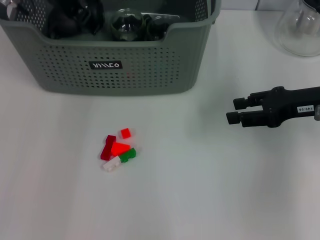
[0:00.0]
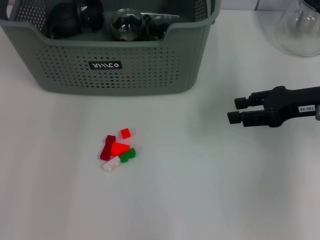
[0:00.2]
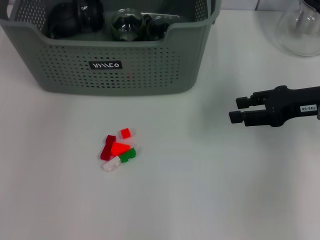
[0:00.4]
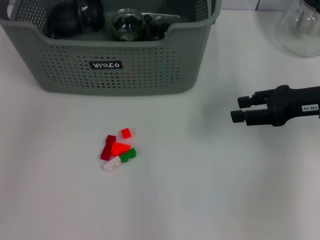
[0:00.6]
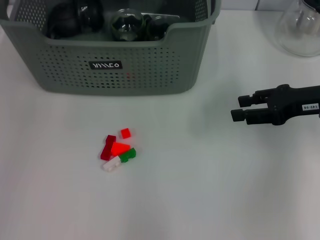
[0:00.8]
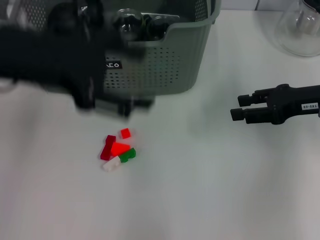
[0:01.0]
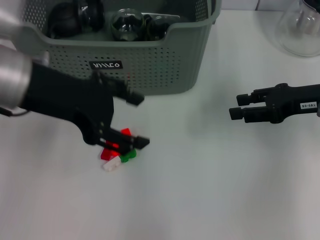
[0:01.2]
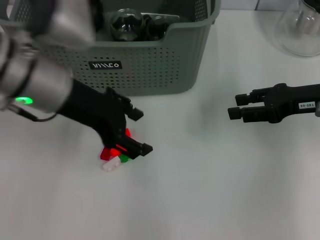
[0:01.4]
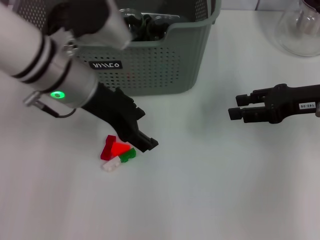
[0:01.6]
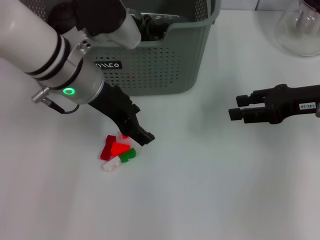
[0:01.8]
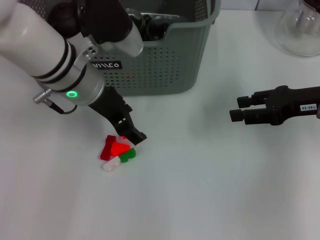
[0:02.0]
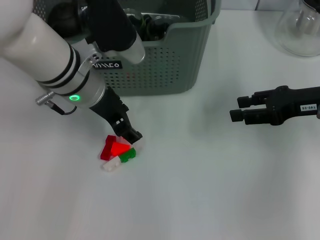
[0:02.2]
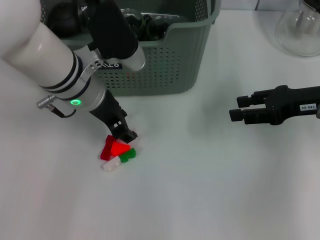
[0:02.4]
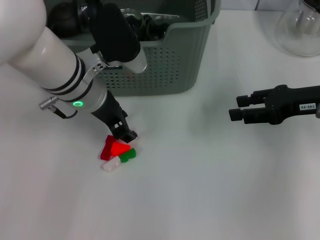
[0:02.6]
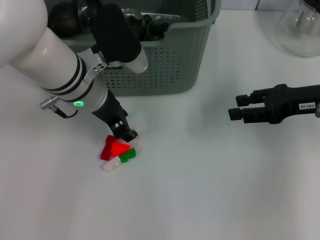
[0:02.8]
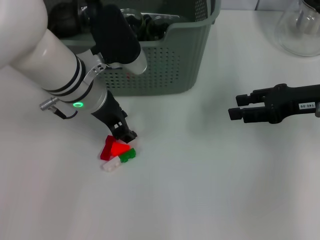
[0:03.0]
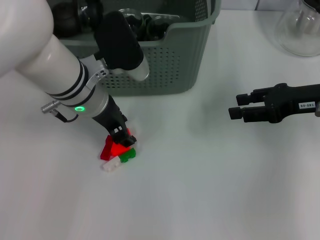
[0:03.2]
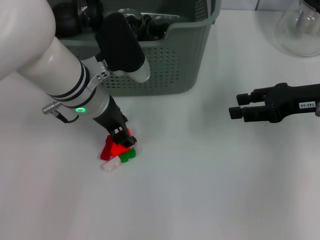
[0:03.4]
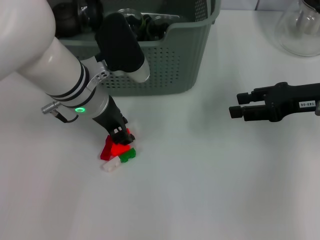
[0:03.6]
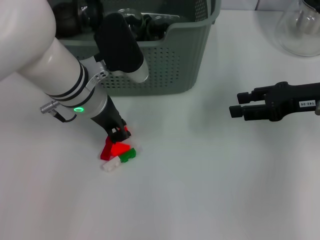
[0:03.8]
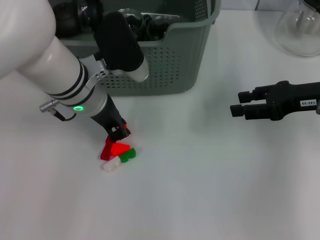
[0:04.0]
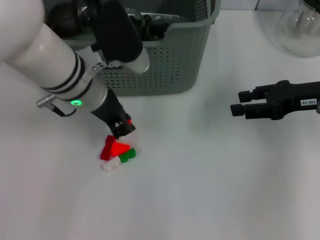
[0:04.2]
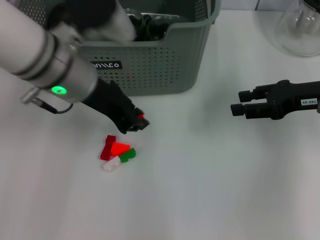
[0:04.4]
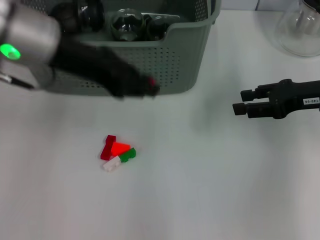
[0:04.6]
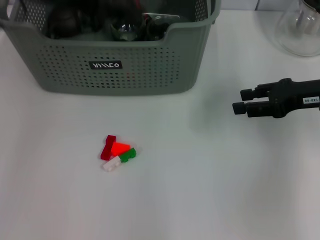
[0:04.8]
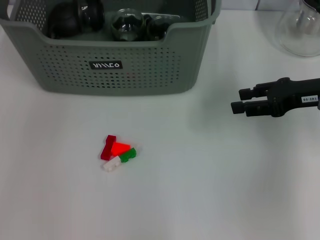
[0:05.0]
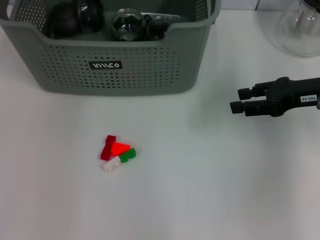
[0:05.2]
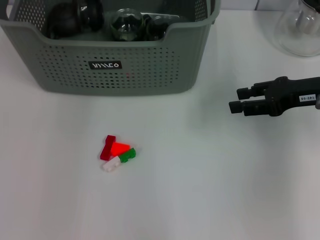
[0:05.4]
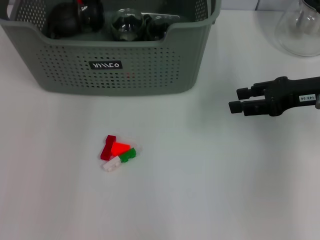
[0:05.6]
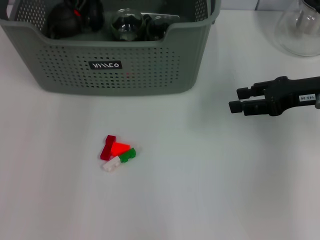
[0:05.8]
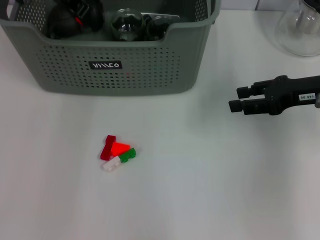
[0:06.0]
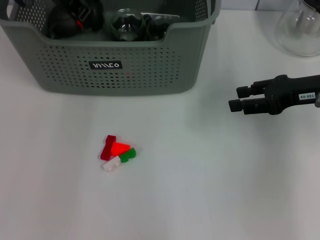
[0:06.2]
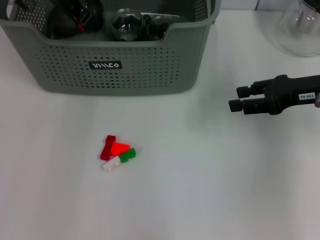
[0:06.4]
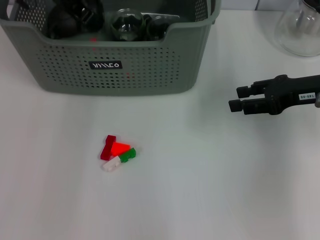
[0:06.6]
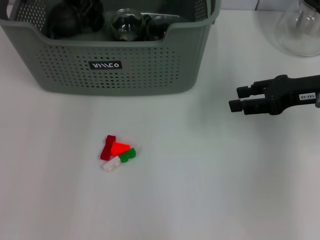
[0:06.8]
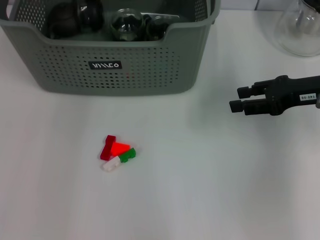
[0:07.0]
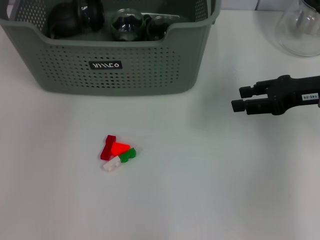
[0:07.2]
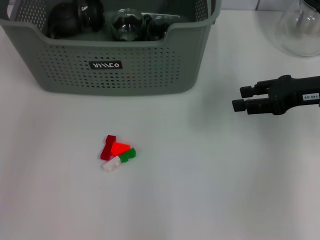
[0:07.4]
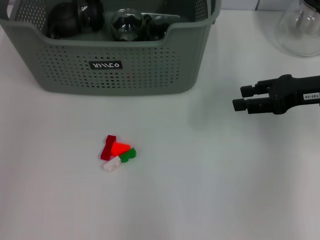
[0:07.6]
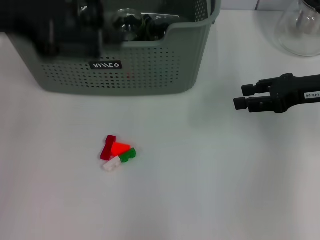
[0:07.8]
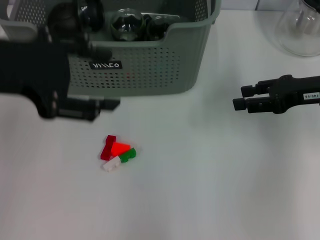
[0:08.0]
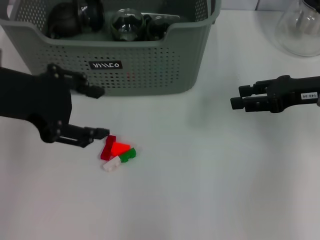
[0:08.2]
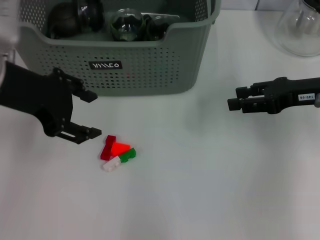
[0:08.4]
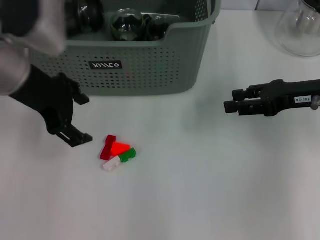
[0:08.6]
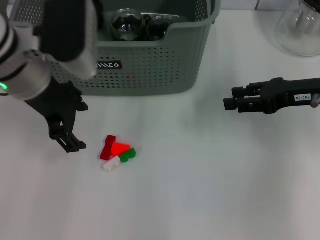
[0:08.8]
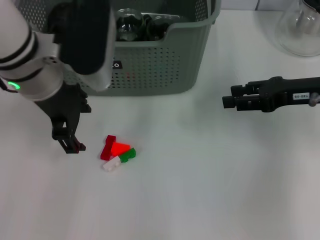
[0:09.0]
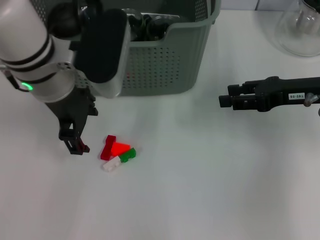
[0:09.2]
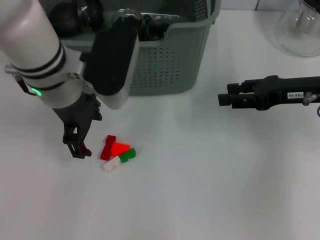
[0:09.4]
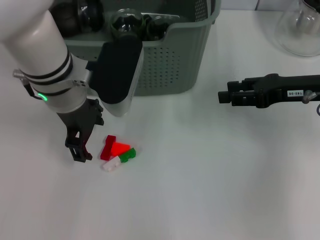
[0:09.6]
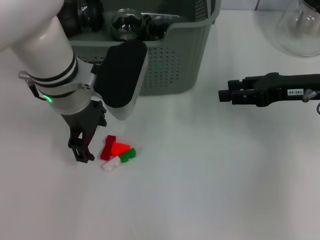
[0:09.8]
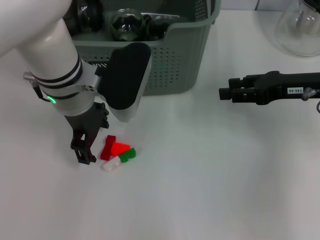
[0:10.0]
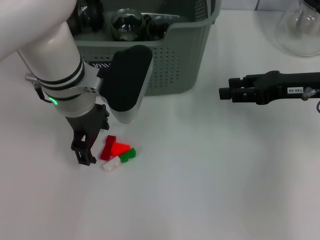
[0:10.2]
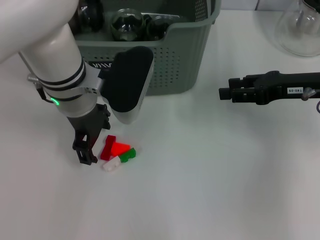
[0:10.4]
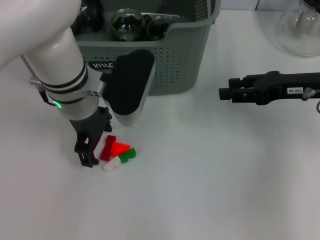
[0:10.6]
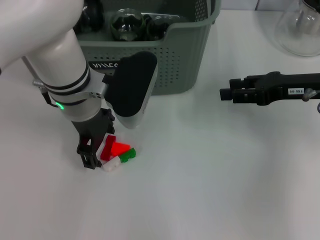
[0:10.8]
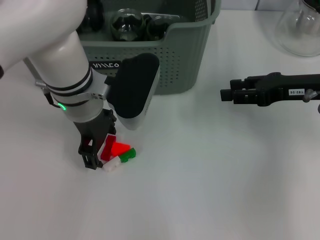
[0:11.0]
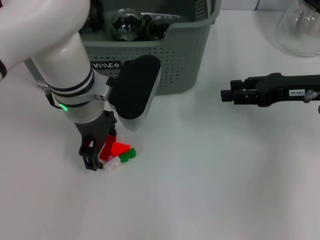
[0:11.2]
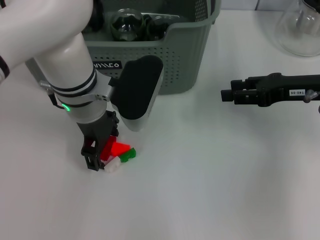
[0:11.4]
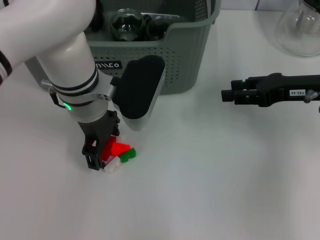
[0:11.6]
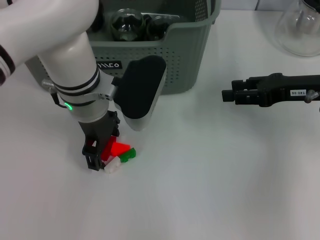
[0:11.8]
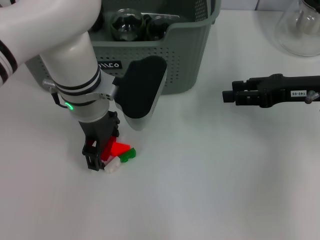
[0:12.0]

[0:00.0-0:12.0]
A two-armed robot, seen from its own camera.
Task of the whole recording: pick up the teacup on the table and place it into the storage bin, pick up the block on the table and place it into the storage bin.
Step, 0:00.0 to 0:03.8: Grasp the orange block with left gripper.
Step, 0:04.0 to 0:06.6: Place the orange block in the storage box with left gripper.
0:00.0 to 0:01.6: The left gripper moves backward and downward, approximately 15 cm.
0:01.6 to 0:03.0: The left gripper changes place by approximately 5 cm.
0:03.0 to 0:04.4: The left gripper heads upward, covering some 5 cm, and closes up.
0:04.4 to 0:06.0: The left gripper shifts approximately 15 cm forward and upward.
0:07.6 to 0:09.0: The left gripper moves downward and to the right, roughly 15 cm.
0:09.0 to 0:10.4: The left gripper travels downward by approximately 5 cm.
0:10.4 to 0:12.0: The grippers move only a little.

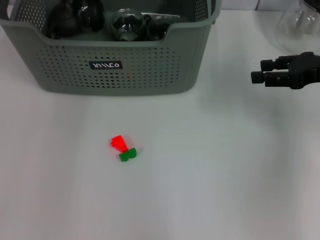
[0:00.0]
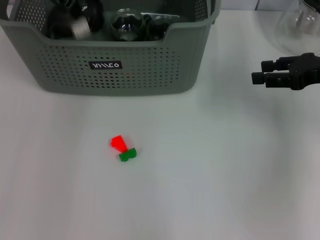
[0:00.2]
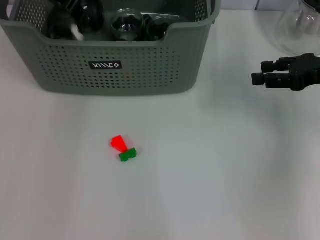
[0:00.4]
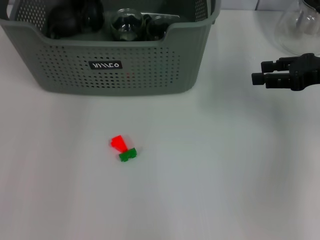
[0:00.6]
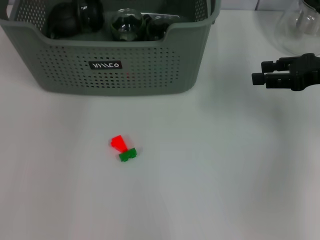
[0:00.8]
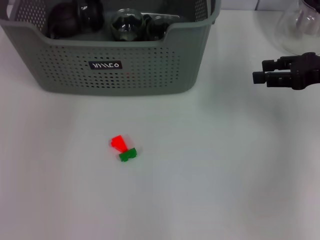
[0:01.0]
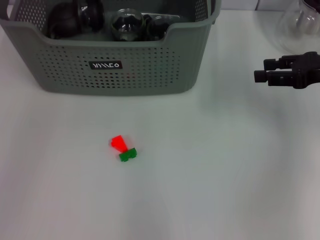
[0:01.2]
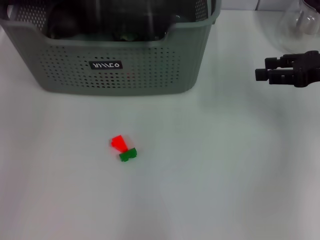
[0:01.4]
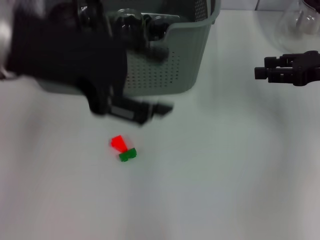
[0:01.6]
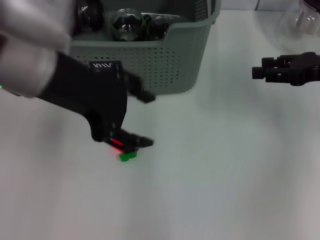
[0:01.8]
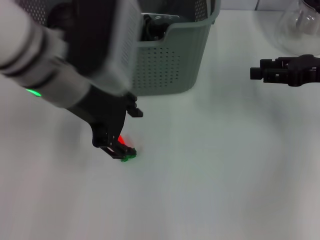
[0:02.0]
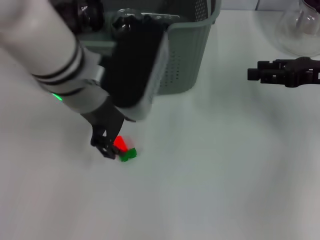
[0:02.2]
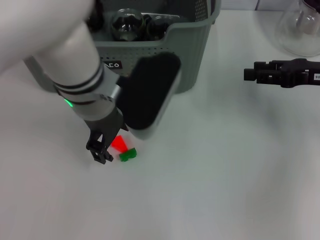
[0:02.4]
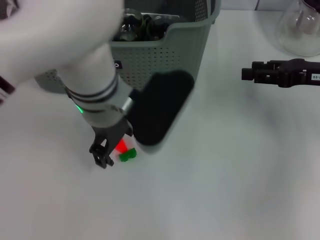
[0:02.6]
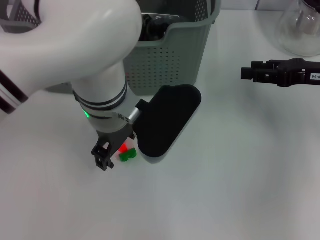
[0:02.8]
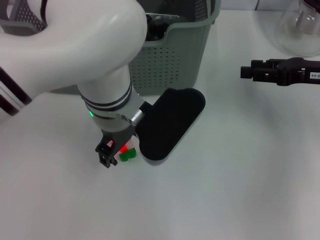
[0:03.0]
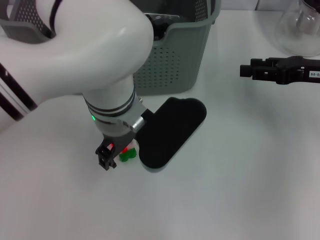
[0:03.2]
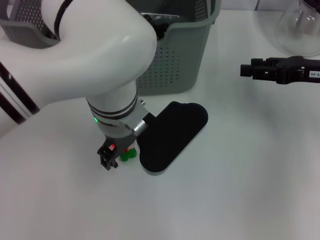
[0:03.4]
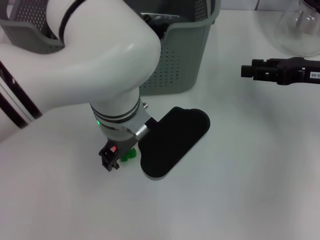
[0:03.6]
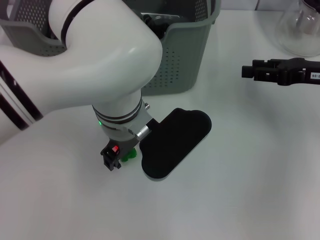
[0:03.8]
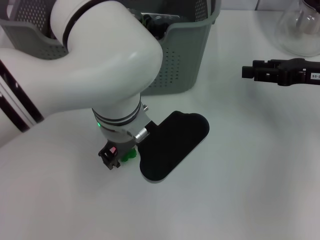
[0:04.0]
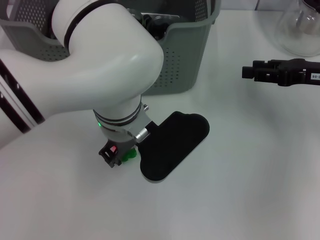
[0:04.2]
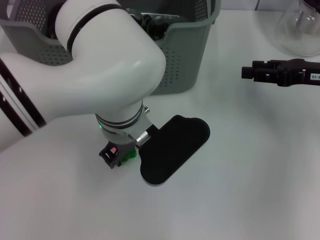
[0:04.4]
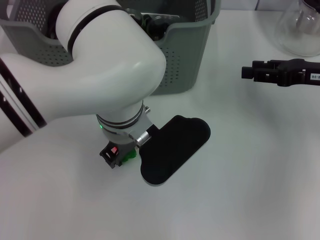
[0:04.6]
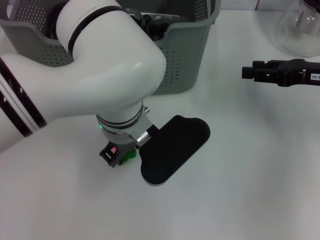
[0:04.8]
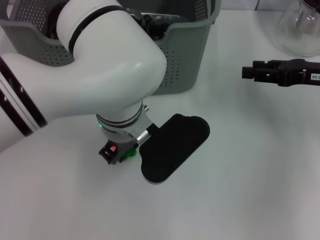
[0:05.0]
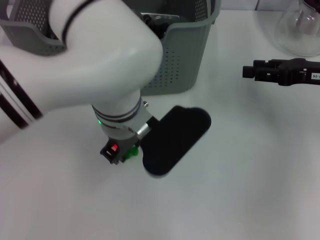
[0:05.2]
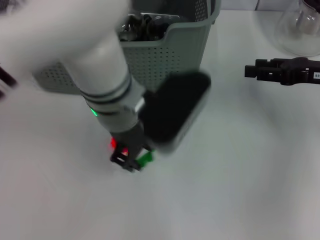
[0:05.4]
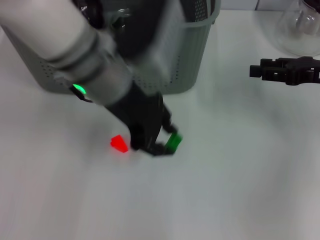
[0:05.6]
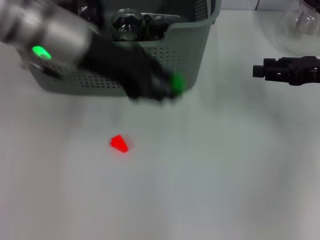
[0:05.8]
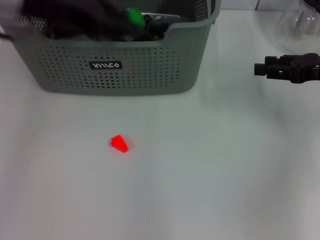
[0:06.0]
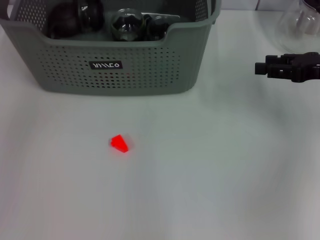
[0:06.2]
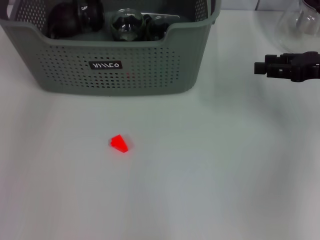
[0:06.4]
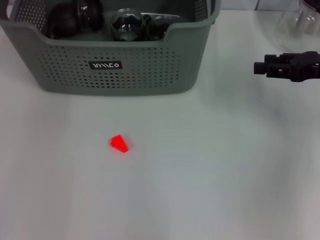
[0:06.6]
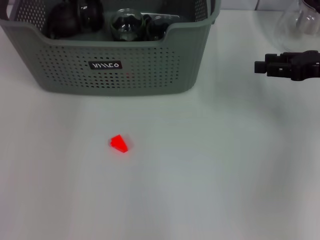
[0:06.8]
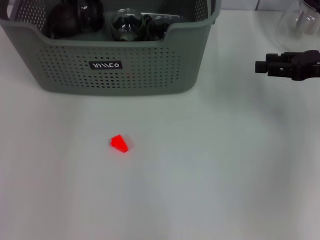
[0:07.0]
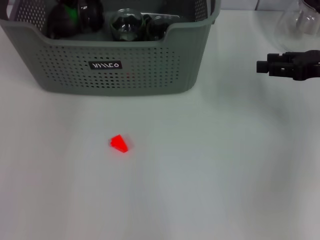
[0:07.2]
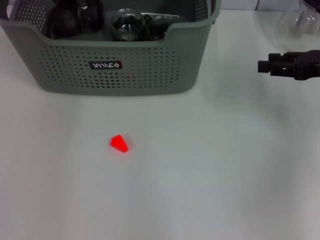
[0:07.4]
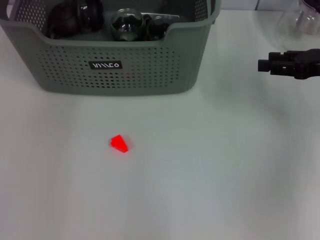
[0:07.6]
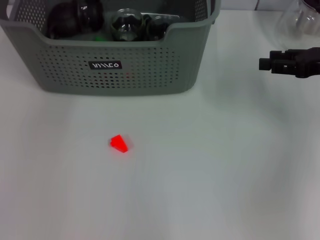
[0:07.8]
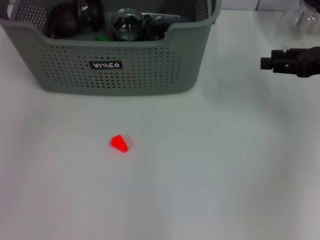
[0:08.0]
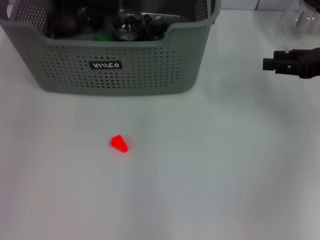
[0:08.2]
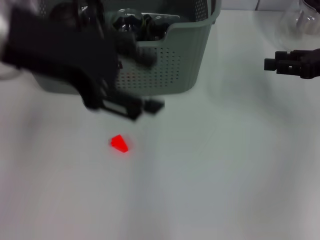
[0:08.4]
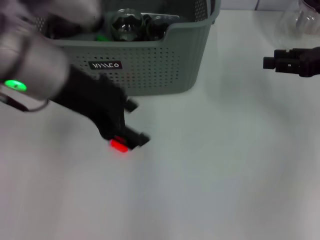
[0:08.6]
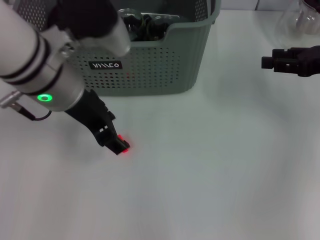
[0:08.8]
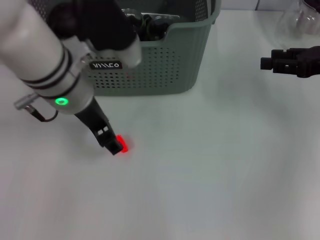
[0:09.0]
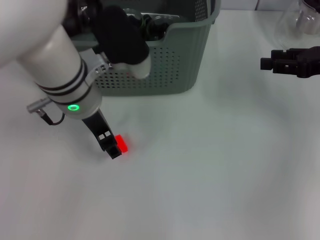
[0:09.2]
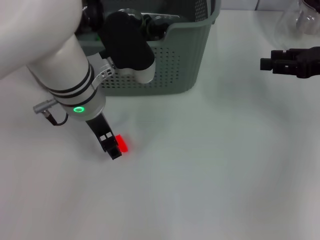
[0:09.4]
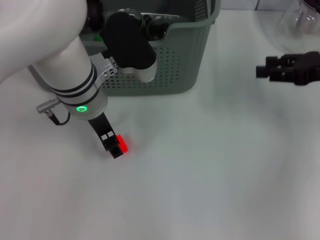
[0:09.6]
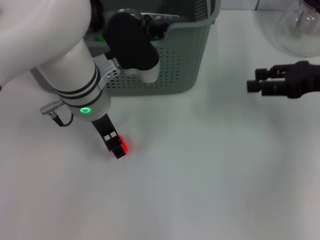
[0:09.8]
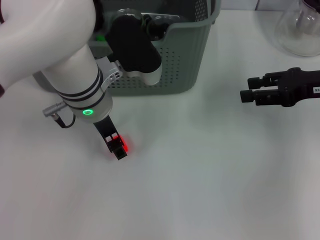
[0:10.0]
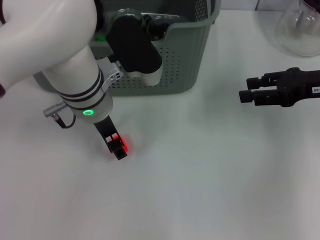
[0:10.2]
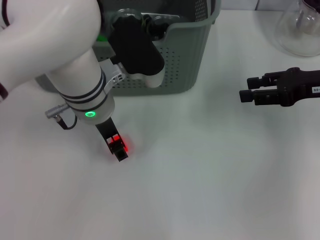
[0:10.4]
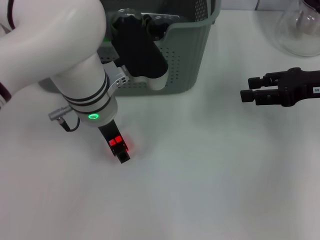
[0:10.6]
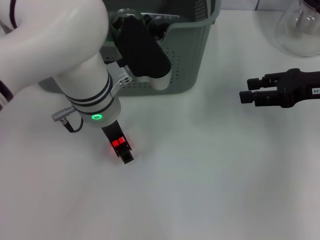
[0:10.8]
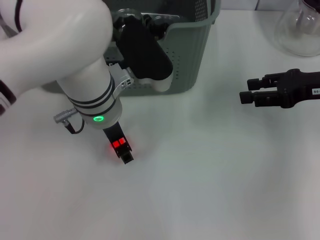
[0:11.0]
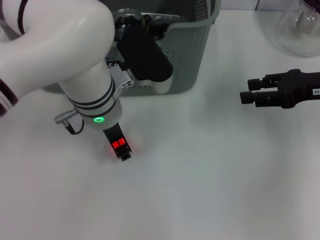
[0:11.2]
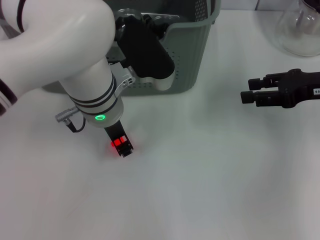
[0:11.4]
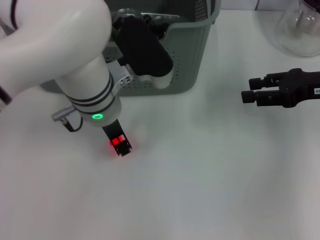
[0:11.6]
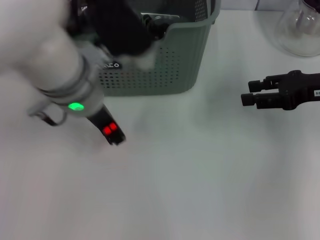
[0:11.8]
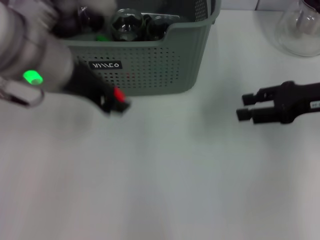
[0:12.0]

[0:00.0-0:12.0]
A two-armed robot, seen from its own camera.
Task of the whole recording: pick up the teacup on the table and place it into the storage bin, pick up the block on the table and place it into the storage bin.
Step, 0:00.6 to 0:04.8: Grasp the green block with left gripper.
Step, 0:05.2 to 0:07.6: Place the green block in the storage box with left gripper.
Step, 0:07.8 to 0:11.4: Grasp the orange block with left gripper.
0:00.0 to 0:01.6: The left gripper is displaced backward by roughly 20 cm, and opens.
0:01.6 to 0:03.0: The left gripper goes roughly 20 cm downward and to the right.
0:04.4 to 0:06.0: The left gripper goes about 20 cm to the left and upward.
0:06.0 to 0:07.6: The left gripper goes some 10 cm forward.
0:07.6 to 0:09.0: The left gripper shifts approximately 20 cm backward, downward and to the right.
0:10.4 to 0:12.0: The left gripper goes some 10 cm upward, and closes.
